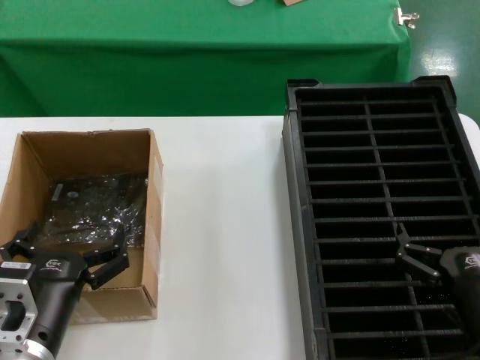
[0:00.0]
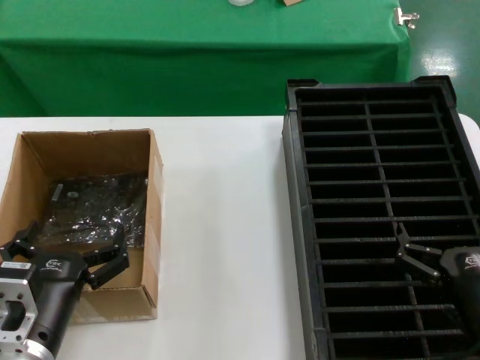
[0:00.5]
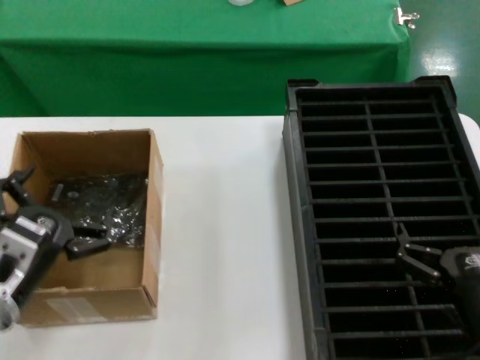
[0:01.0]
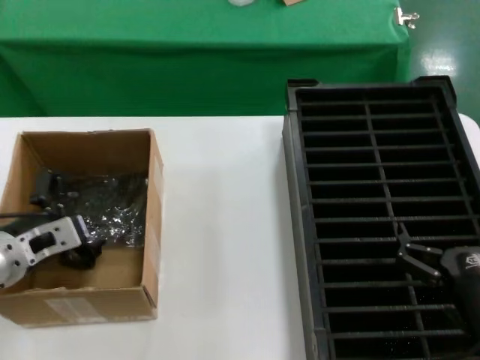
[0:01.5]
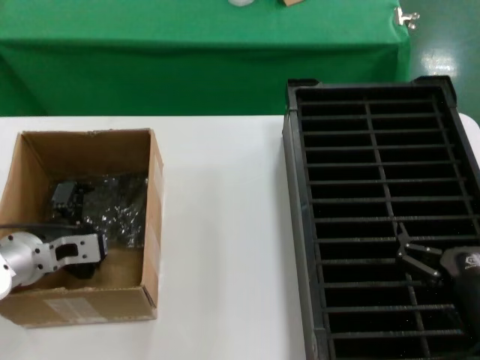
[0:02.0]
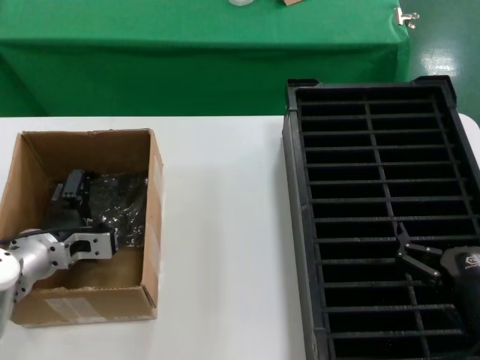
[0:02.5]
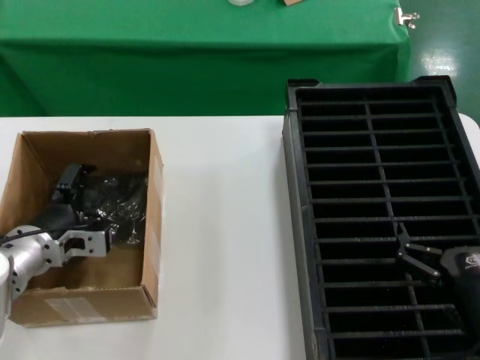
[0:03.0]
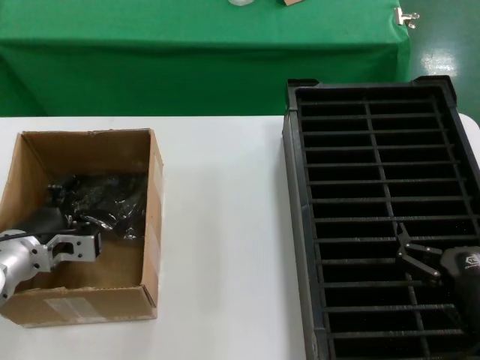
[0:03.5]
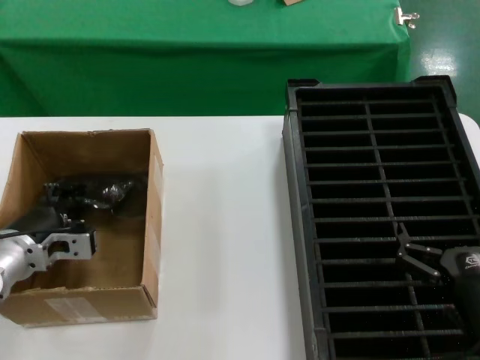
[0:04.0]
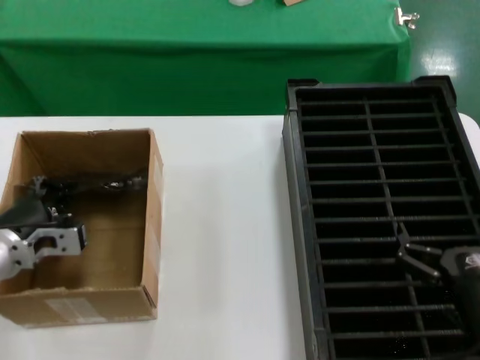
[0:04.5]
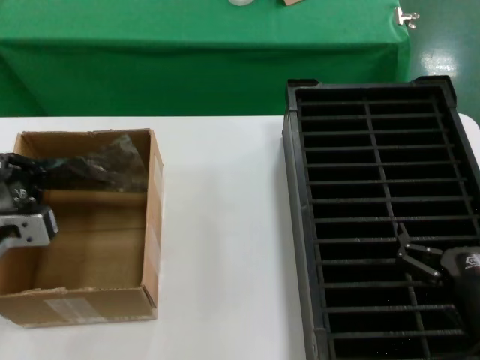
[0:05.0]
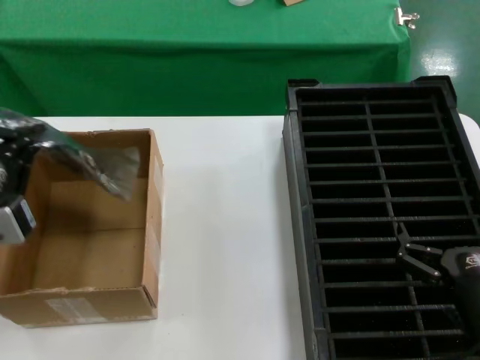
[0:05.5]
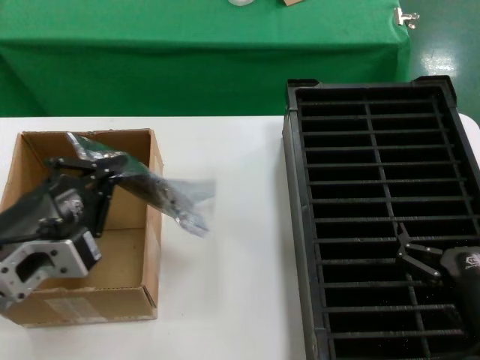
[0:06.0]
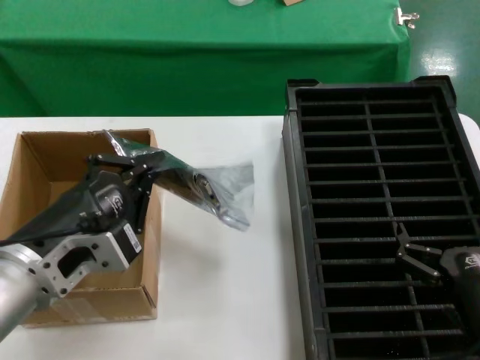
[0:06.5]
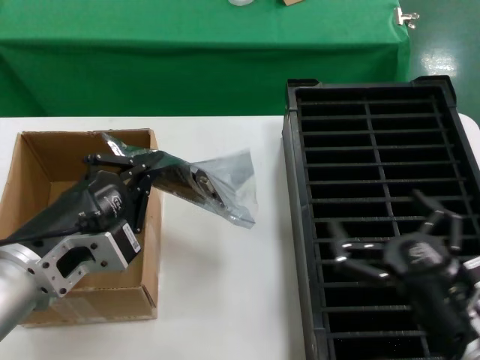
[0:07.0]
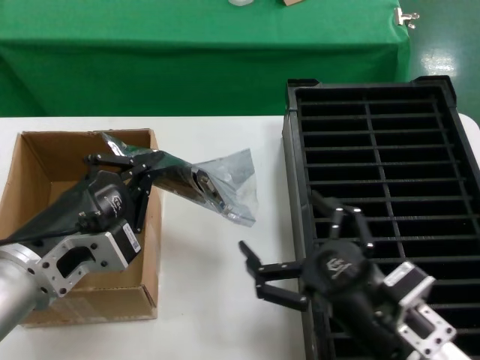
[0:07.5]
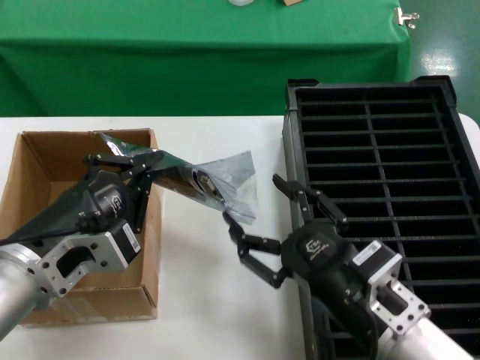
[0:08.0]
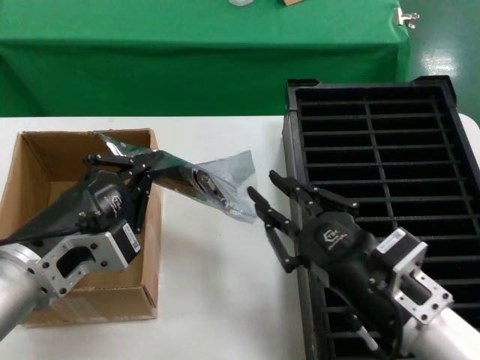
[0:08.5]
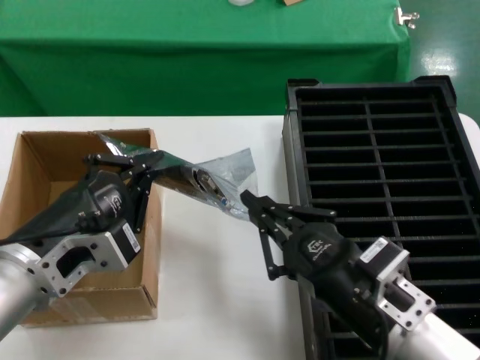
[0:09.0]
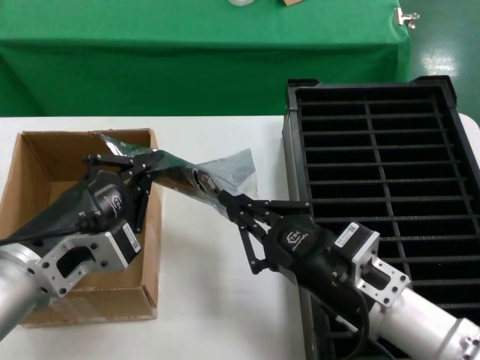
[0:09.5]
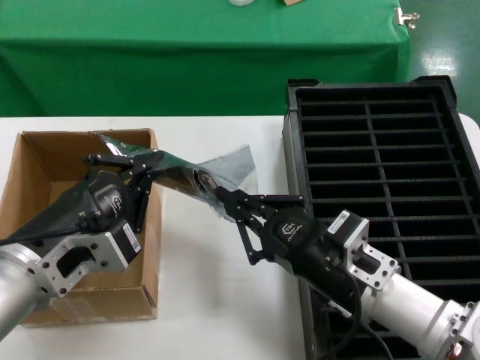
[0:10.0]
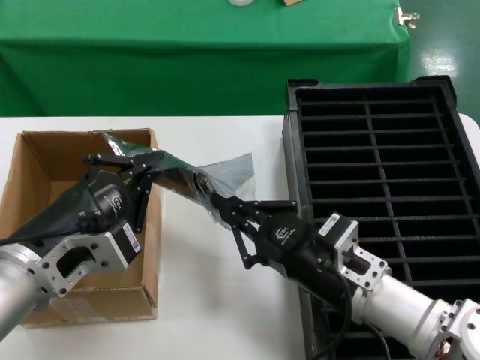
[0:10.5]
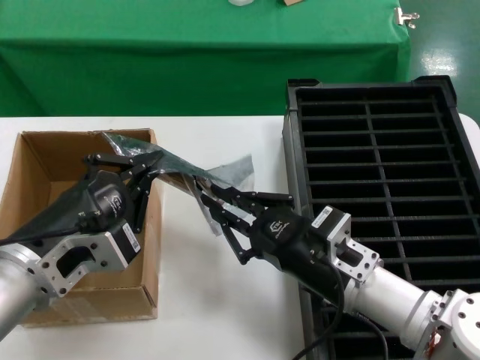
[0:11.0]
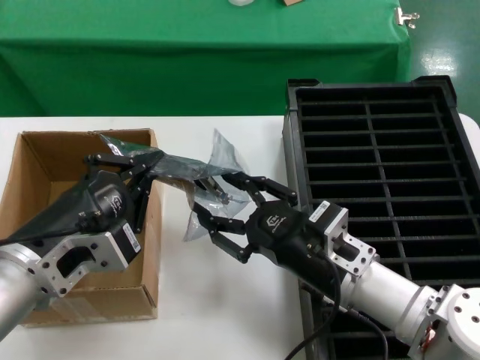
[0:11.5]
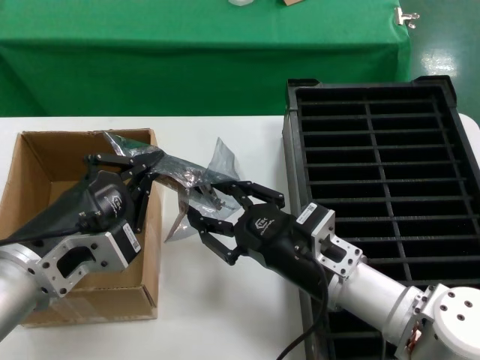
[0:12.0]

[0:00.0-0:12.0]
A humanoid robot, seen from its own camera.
Task of the whole recording: take out graphics card from box remove packaging put into black container.
Step, 0:00.0 to 0:04.0: Grasp the bag.
Step, 0:04.5 to 0:06.0: Lift the bag.
0:00.0 to 0:02.0: The left hand moves forward and to the left, about 20 cm.
0:02.0 to 0:04.0: There are only small adjustments of the hands.
0:04.0 to 0:06.0: The left hand shifts some 20 cm backward and upward.
0:06.0 to 0:08.0: The right hand travels to the left and upward by some 10 cm.
0:08.0 to 0:10.0: The right hand goes roughly 5 cm forward.
0:10.0 to 0:12.0: The hands make only small movements.

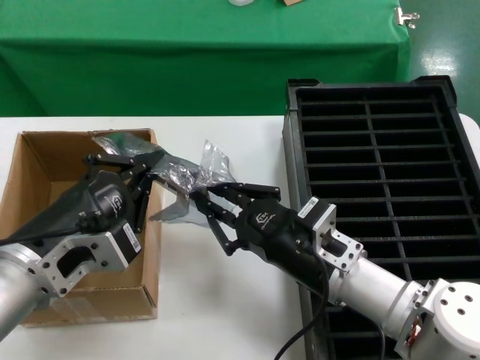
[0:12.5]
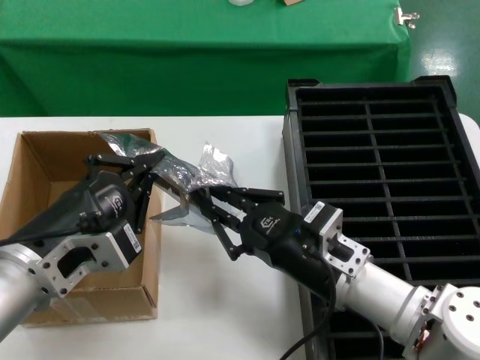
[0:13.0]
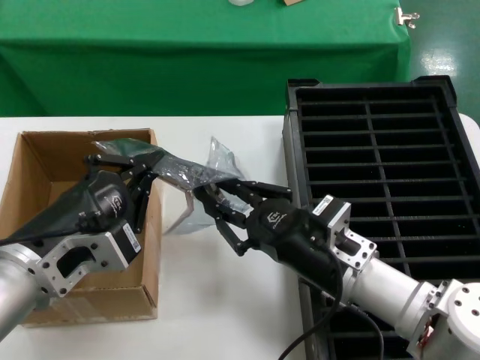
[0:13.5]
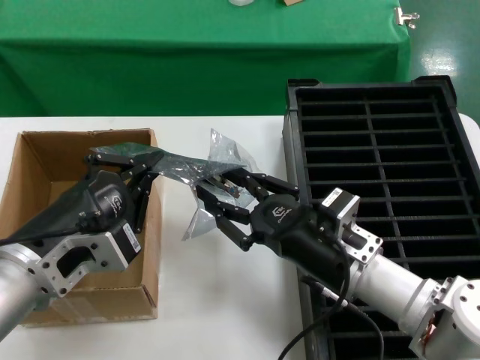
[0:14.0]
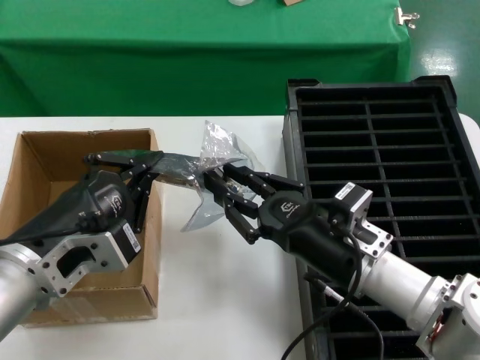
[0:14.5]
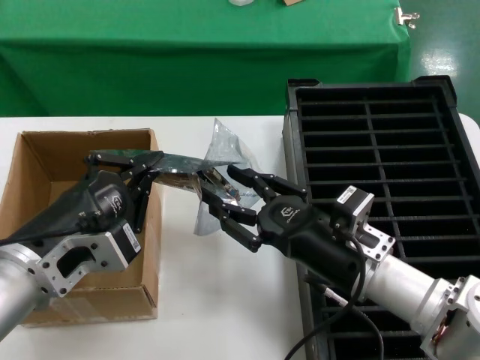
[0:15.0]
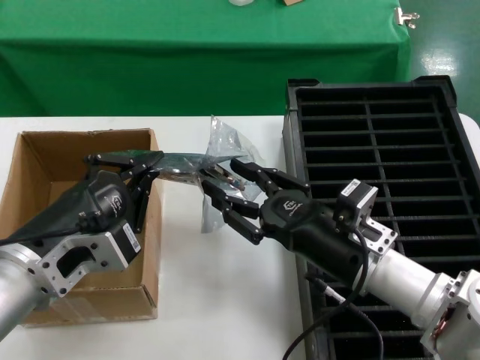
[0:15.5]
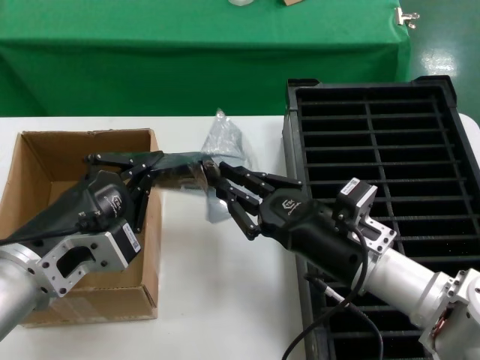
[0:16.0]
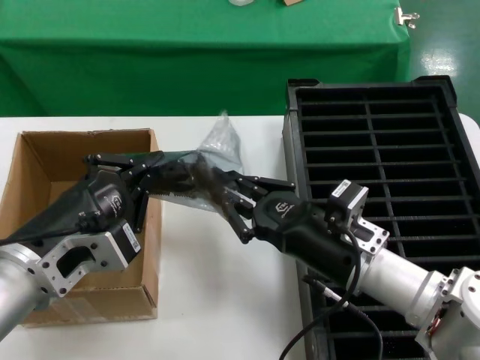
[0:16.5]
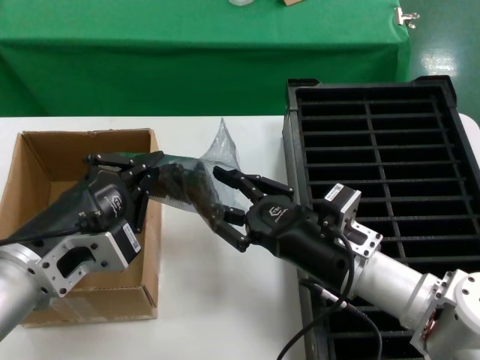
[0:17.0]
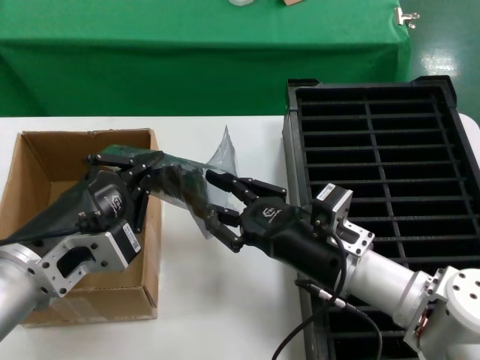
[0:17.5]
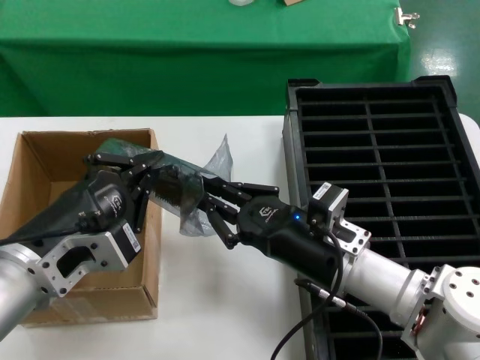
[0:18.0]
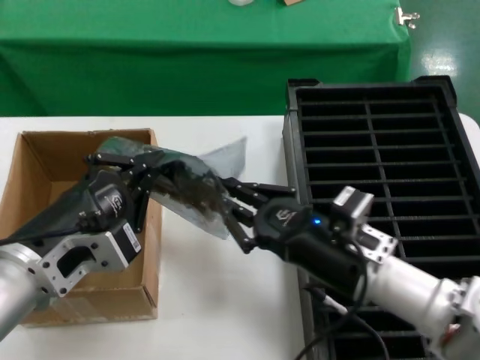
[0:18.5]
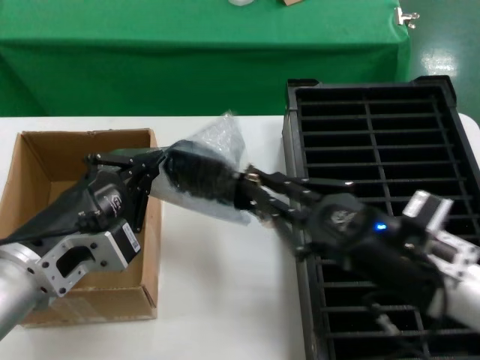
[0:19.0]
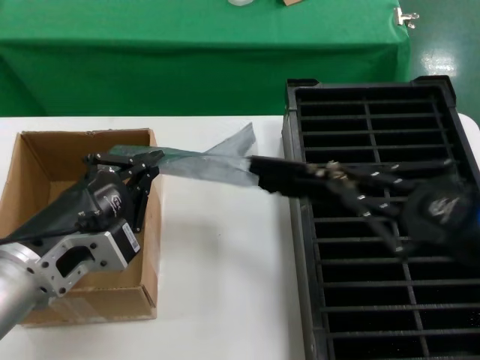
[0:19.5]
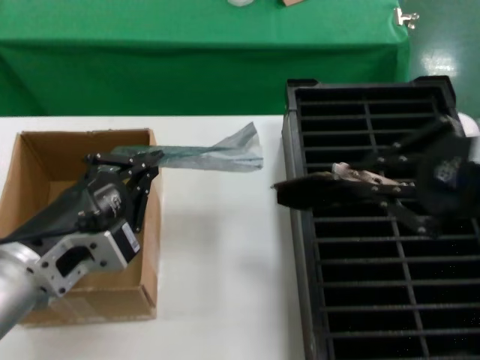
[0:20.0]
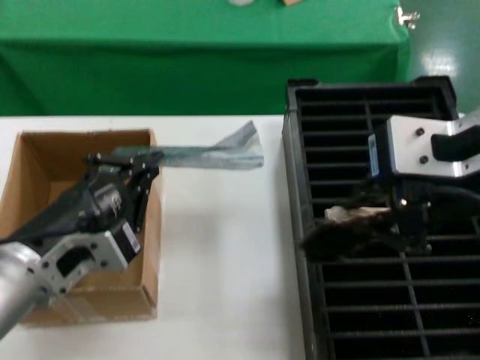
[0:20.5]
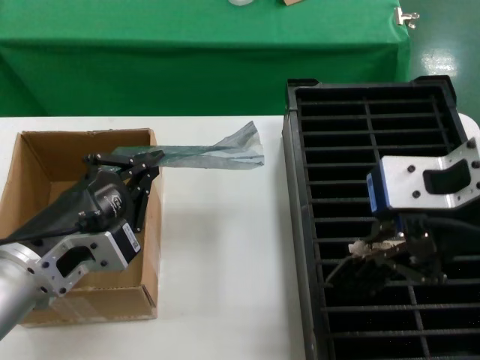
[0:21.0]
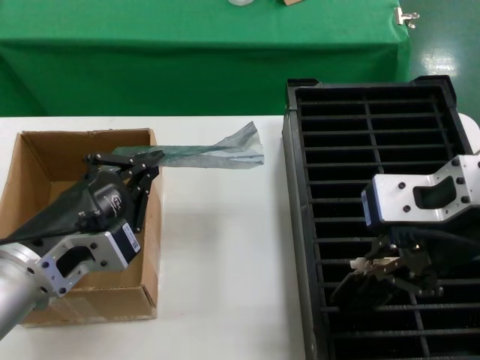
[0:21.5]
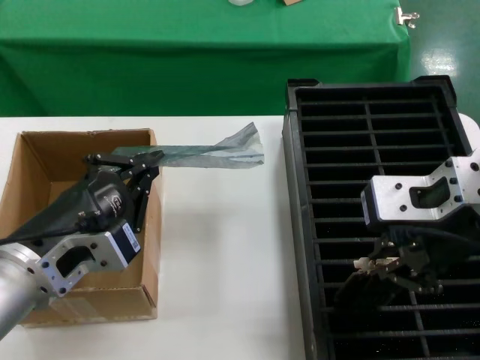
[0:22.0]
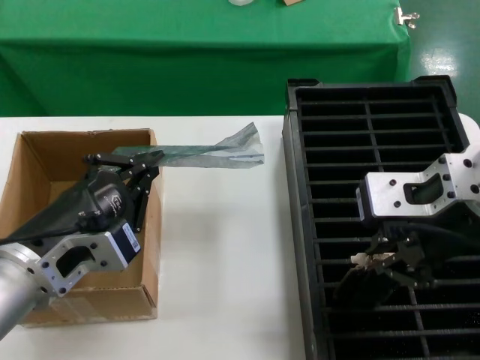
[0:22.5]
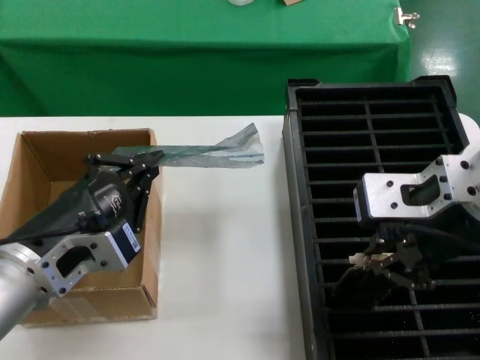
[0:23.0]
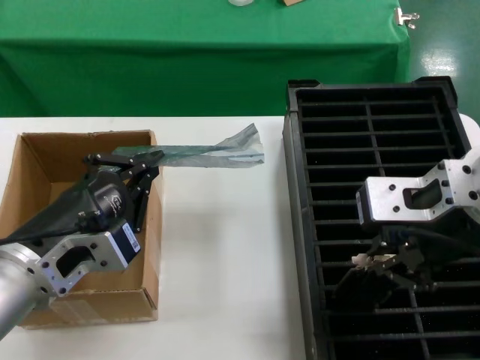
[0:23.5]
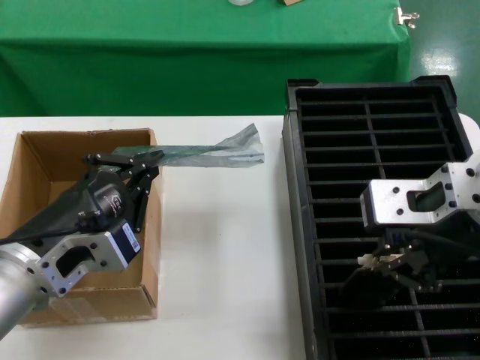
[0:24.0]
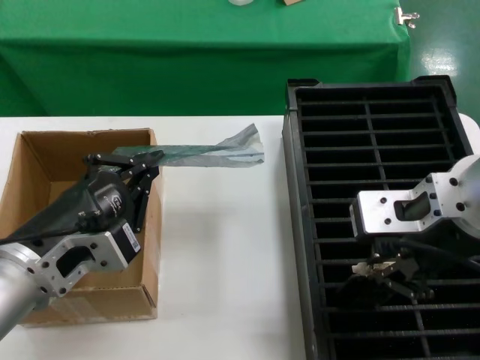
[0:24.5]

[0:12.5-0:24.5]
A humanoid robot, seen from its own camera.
Task of the whole recording: take out graphics card from box remove packaging put into black container.
Step, 0:12.5 to 0:19.5: Take out the hard disk of the bag.
0:12.5 to 0:14.5: The hands stay close to where they were, moving slightly.
0:14.5 to 0:16.5: Both hands stay about where they are.
0:16.5 to 0:18.5: There are only small adjustments of the hands.
0:18.5 to 0:20.5: The right hand moves upward, some 30 cm.
0:20.5 to 0:22.5: The right hand goes approximately 5 cm downward.
0:22.5 to 0:24.5: The hands make only small movements.

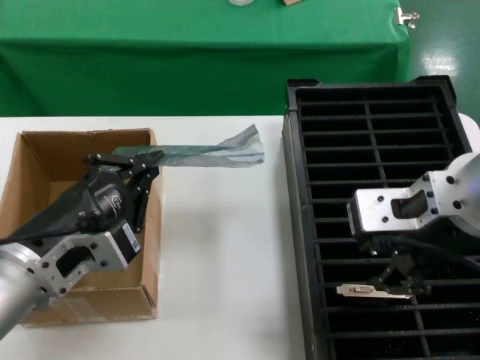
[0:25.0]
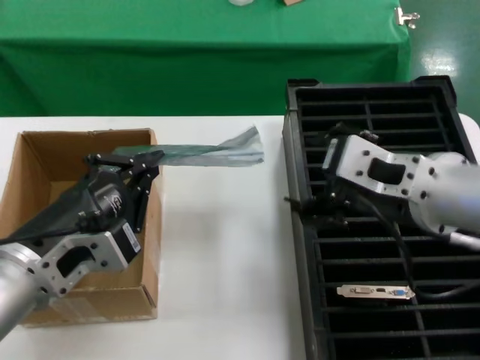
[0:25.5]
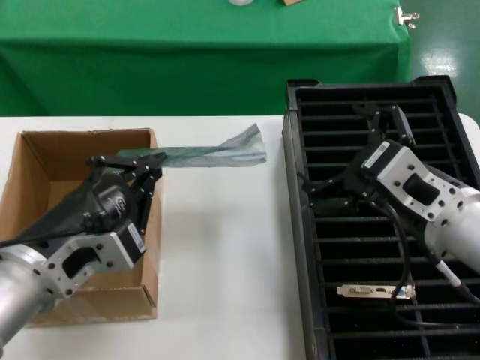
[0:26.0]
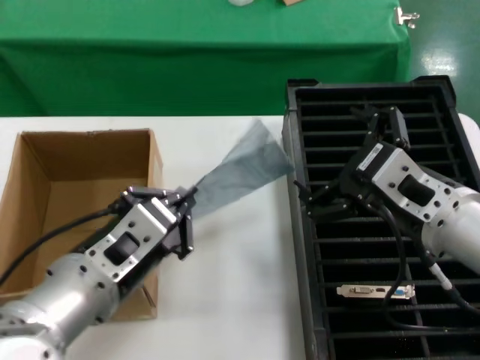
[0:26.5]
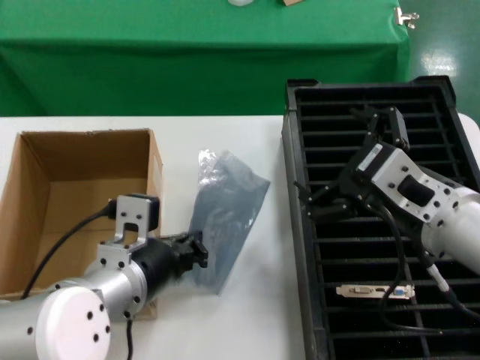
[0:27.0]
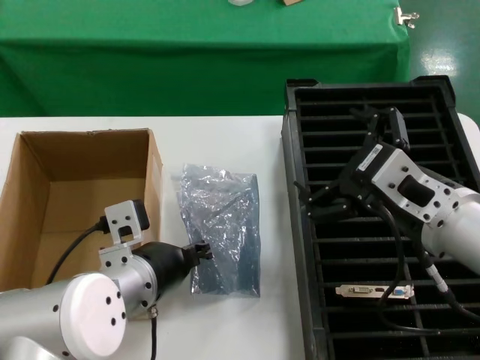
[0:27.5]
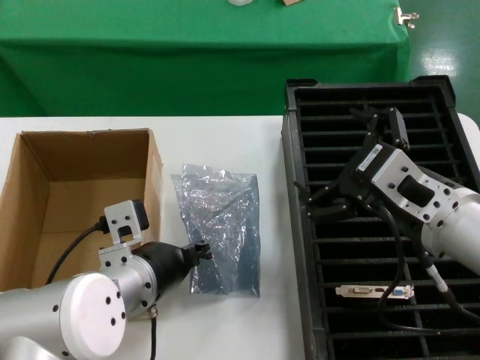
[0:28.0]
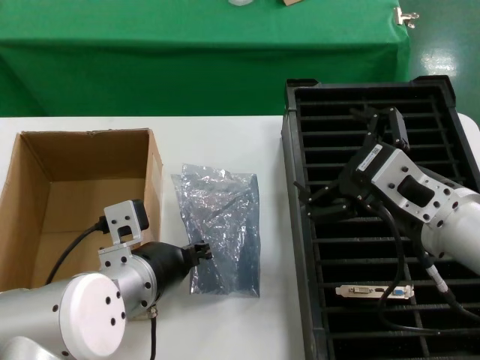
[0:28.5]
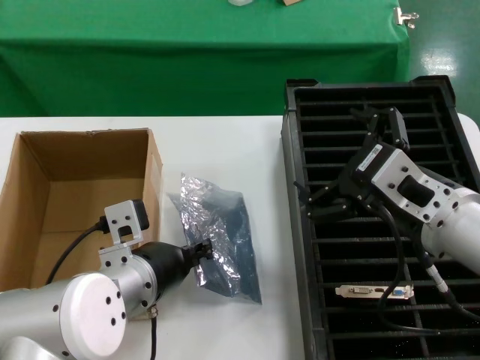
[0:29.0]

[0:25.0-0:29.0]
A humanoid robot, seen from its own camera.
Task of the whole recording: take out graphics card from box remove packaging put into black container.
0:25.0 to 0:27.0: The right hand heads downward, covering approximately 10 cm. The left hand moves to the right and forward, approximately 10 cm.
